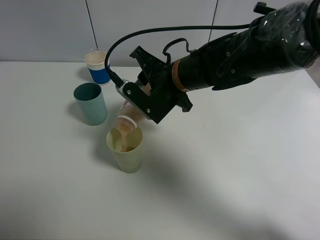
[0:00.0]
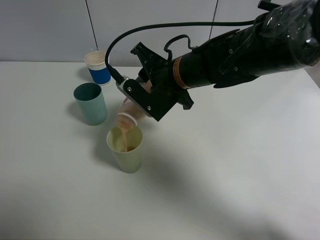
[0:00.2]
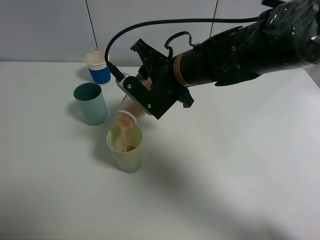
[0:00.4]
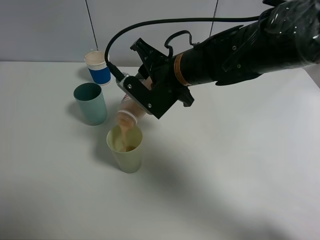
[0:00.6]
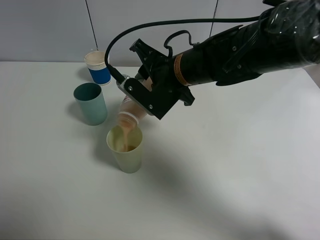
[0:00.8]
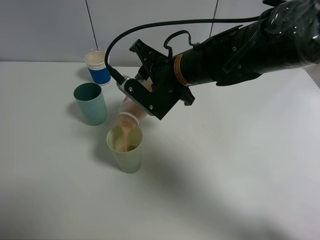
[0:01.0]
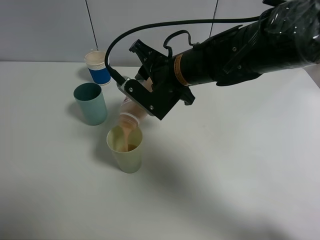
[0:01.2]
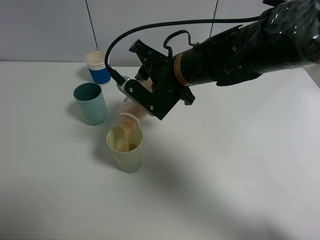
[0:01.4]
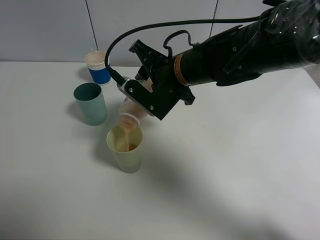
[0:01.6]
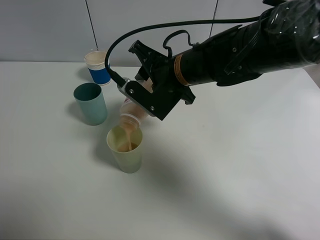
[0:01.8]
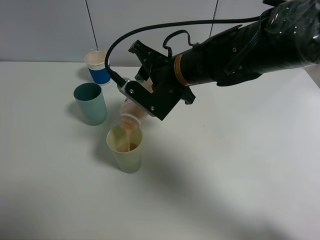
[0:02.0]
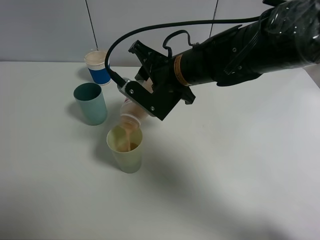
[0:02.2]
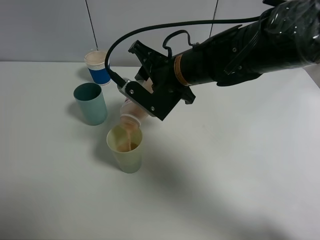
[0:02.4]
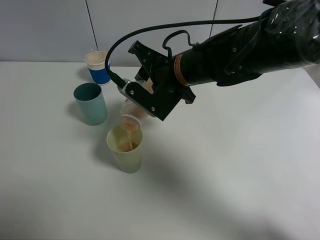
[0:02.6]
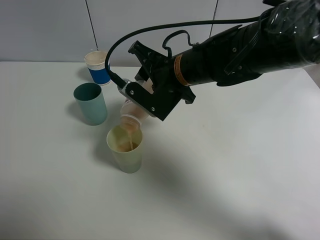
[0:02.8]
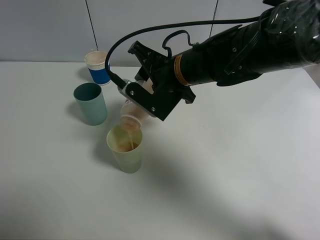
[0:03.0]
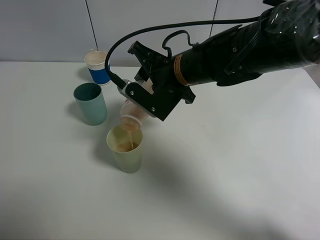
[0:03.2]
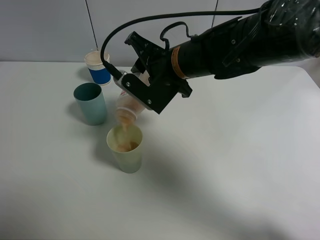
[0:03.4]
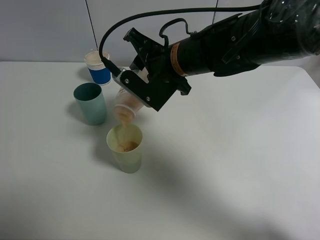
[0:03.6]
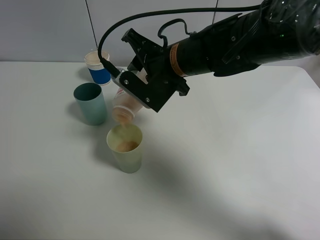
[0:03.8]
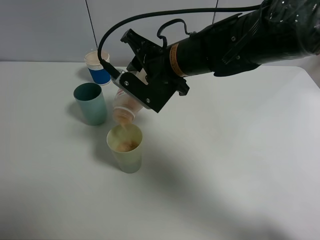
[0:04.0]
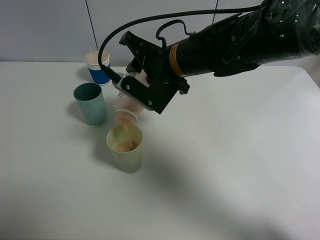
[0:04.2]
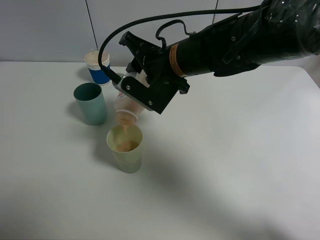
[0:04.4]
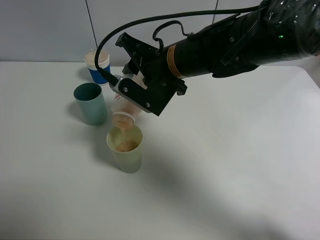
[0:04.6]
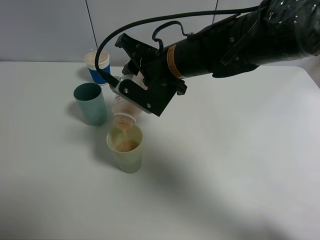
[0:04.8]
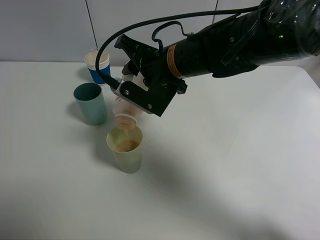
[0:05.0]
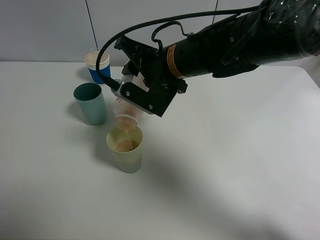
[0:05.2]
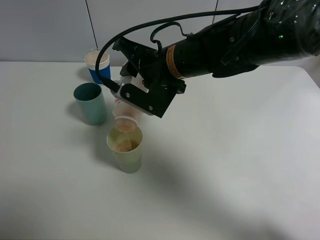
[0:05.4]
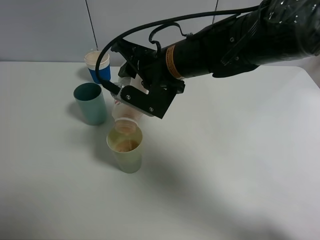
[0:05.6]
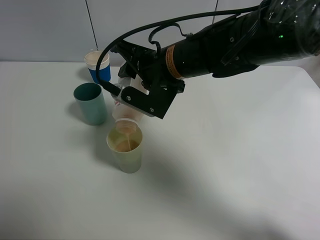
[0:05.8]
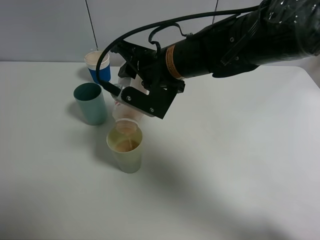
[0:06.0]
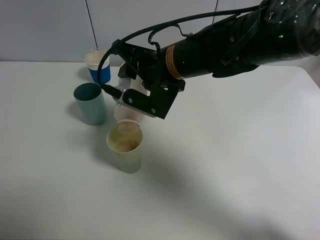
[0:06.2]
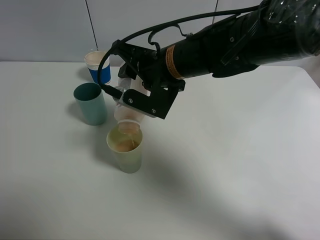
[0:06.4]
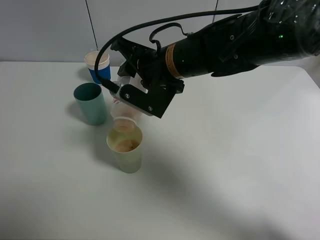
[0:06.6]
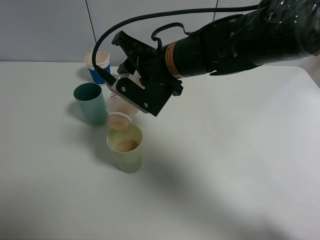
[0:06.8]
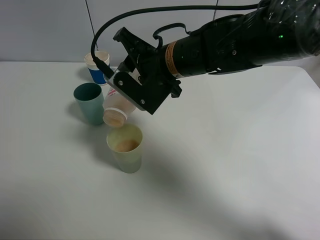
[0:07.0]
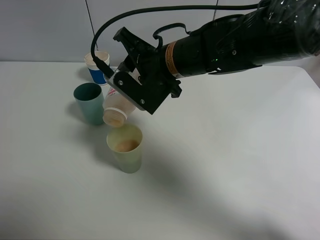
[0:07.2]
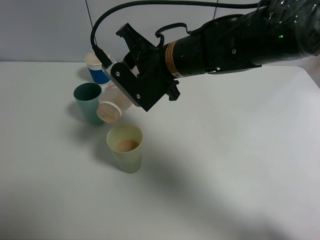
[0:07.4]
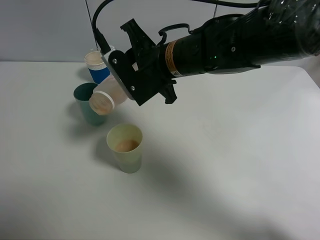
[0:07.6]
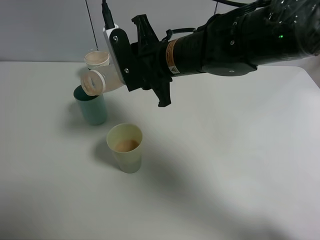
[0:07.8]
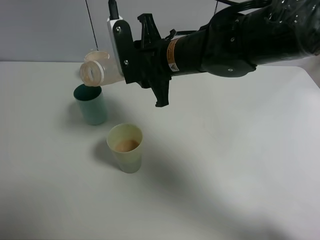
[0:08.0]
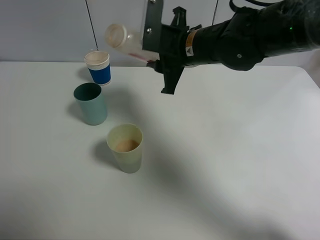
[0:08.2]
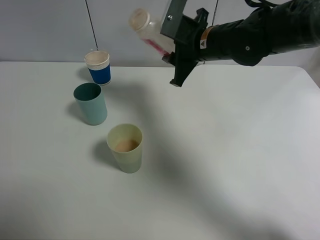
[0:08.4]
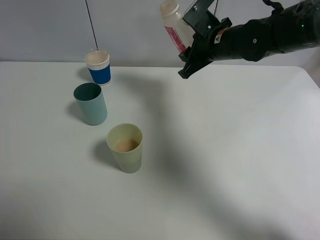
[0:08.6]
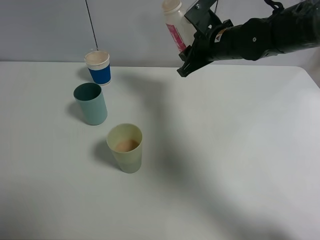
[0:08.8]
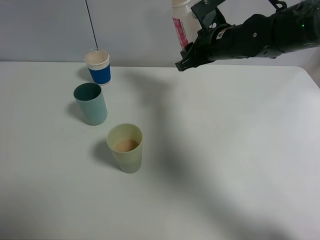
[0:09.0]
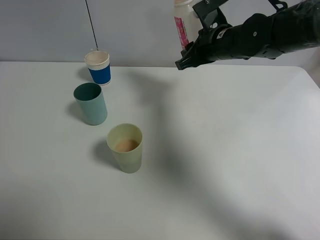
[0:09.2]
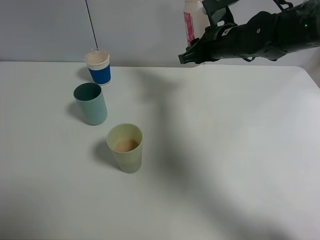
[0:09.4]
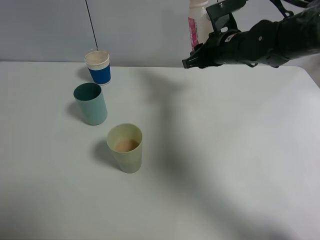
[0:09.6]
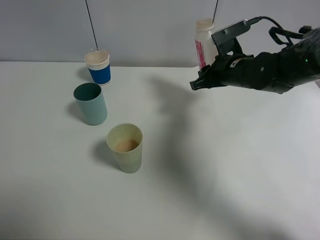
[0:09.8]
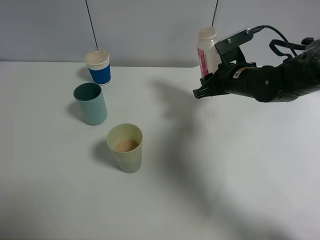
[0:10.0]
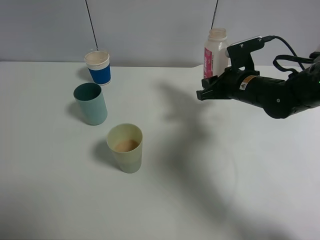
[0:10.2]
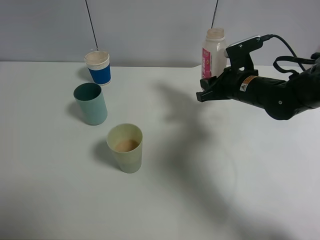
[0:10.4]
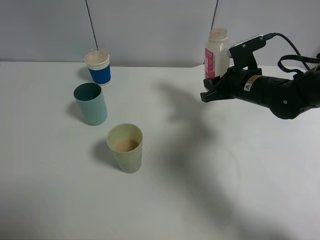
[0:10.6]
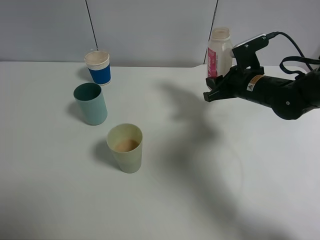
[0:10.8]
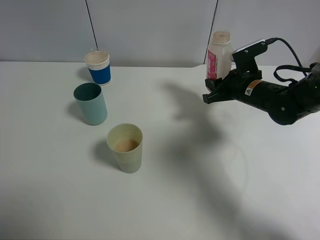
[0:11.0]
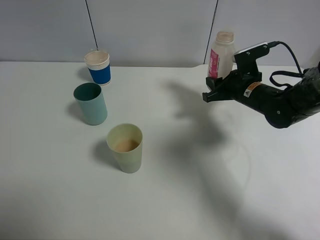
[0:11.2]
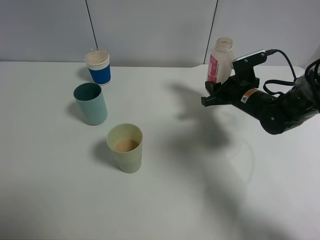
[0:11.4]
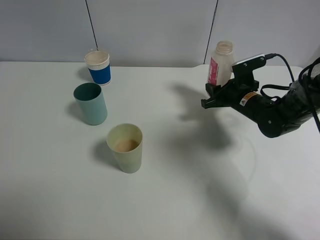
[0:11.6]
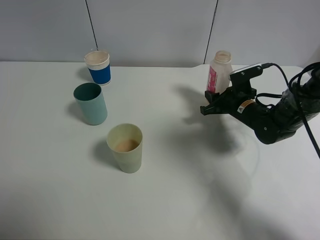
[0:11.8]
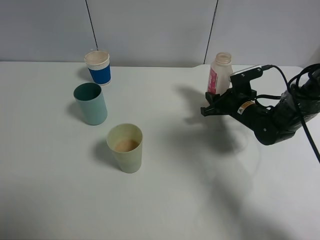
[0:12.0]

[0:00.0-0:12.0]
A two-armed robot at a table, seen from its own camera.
Task of the whole recording: use a clamp to hold the bottle of the drink, pour the beverage into a random cup, then clamp the cup containing the drink and pour the drink into another random cup.
Step, 0:00.0 to 0:07.6: Pour the drink into the green plastic cup with right gripper.
0:00.0 to 0:01.6: Neither gripper changes place.
0:01.6 to 0:03.0: Neither gripper changes place.
0:03.0 to 0:06.0: The grippers move only a little.
0:07.6 to 0:09.0: The right gripper heads to the right and forward, covering about 15 cm.
0:09.0 to 0:10.4: The right gripper is displaced downward and to the right by approximately 10 cm.
0:10.4 to 0:12.0: The right gripper goes roughly 10 cm downward.

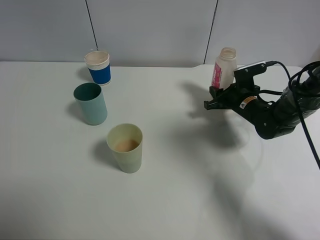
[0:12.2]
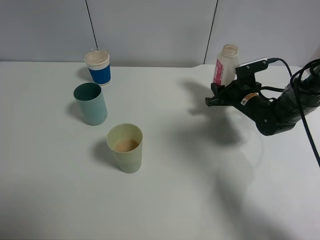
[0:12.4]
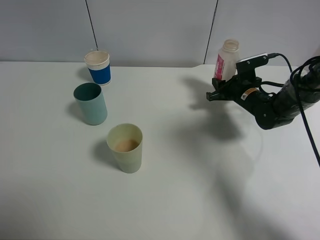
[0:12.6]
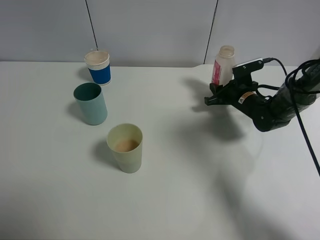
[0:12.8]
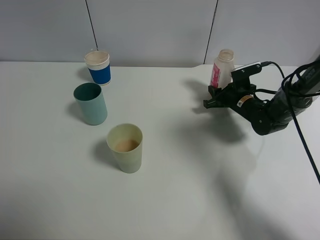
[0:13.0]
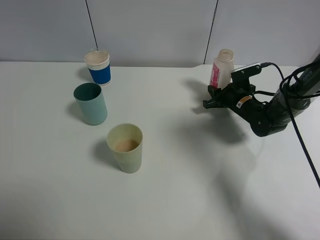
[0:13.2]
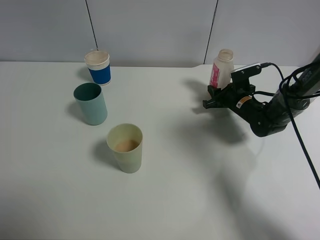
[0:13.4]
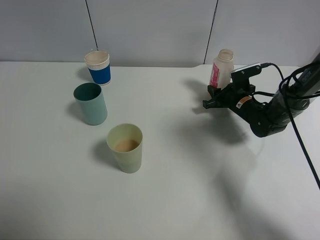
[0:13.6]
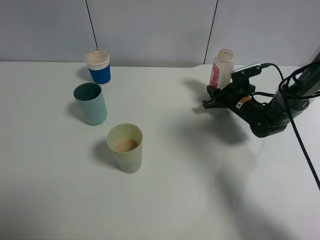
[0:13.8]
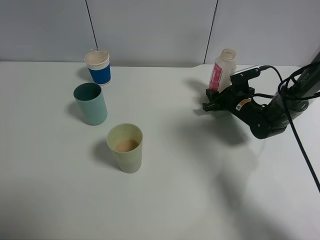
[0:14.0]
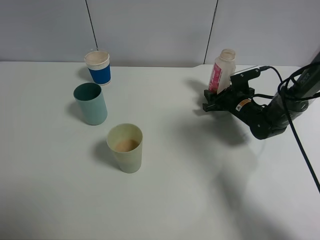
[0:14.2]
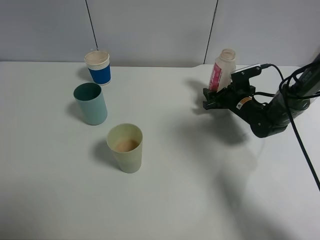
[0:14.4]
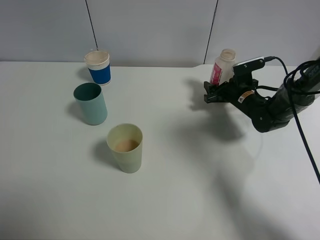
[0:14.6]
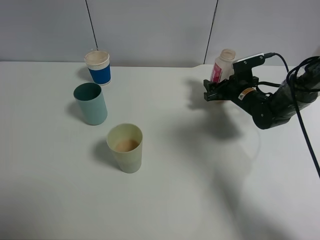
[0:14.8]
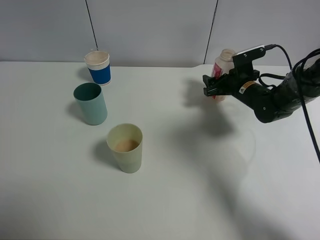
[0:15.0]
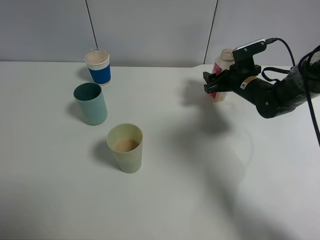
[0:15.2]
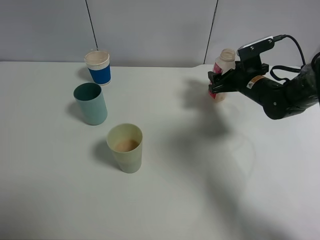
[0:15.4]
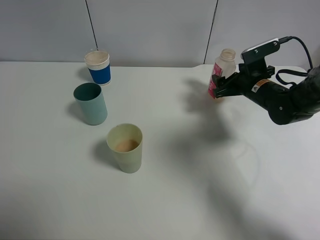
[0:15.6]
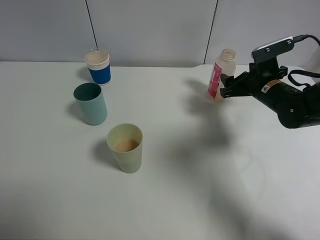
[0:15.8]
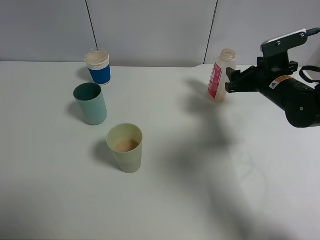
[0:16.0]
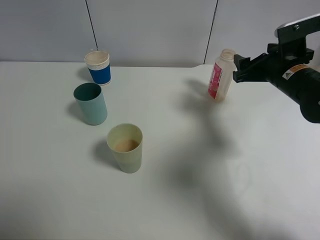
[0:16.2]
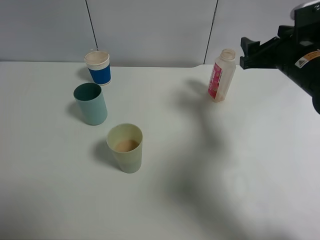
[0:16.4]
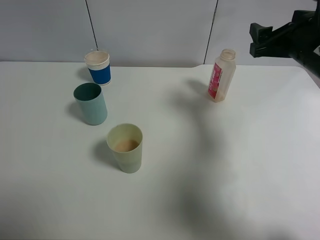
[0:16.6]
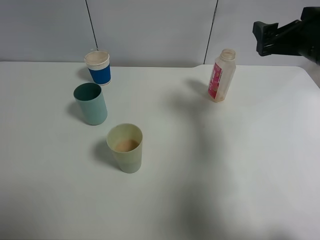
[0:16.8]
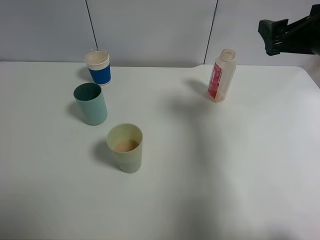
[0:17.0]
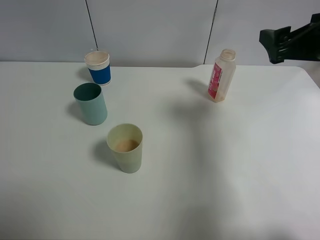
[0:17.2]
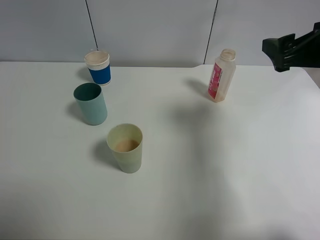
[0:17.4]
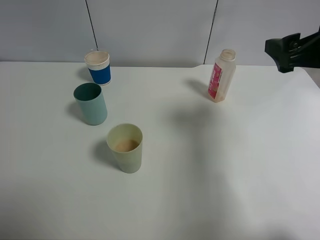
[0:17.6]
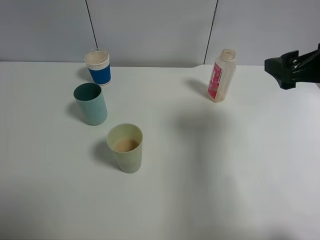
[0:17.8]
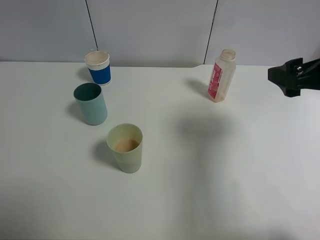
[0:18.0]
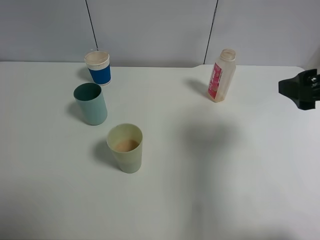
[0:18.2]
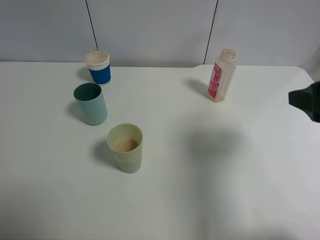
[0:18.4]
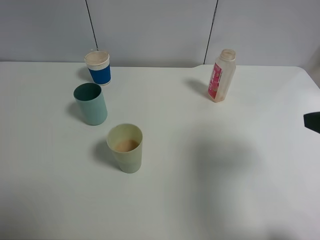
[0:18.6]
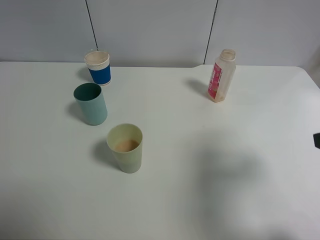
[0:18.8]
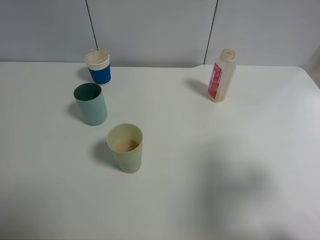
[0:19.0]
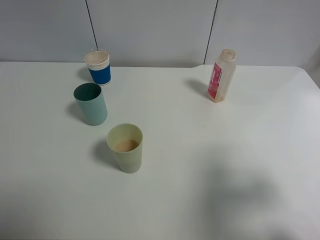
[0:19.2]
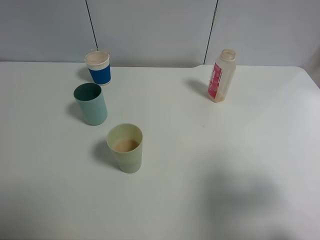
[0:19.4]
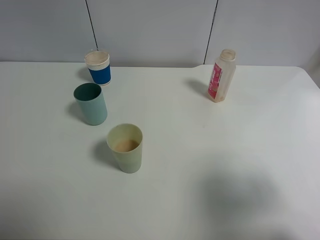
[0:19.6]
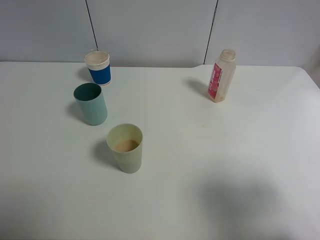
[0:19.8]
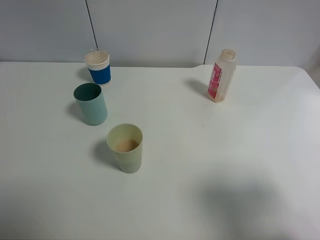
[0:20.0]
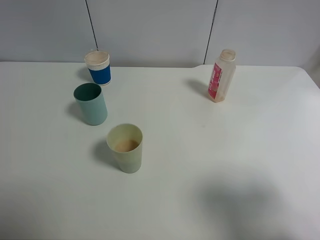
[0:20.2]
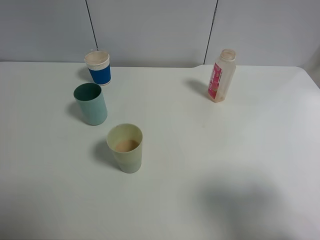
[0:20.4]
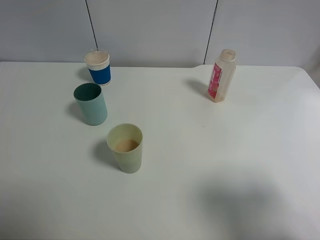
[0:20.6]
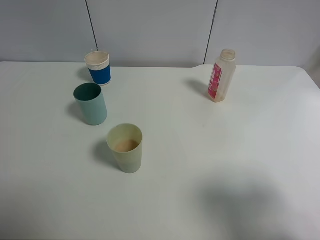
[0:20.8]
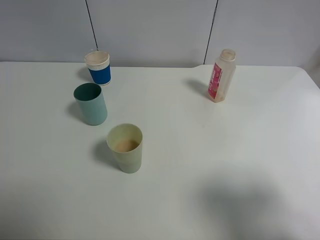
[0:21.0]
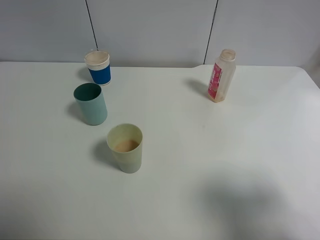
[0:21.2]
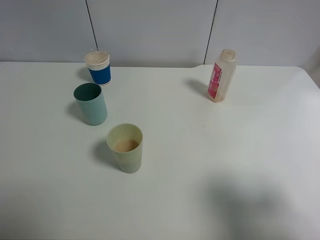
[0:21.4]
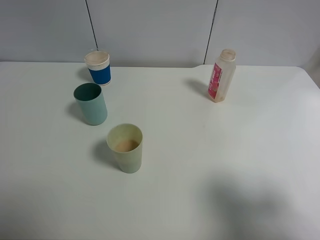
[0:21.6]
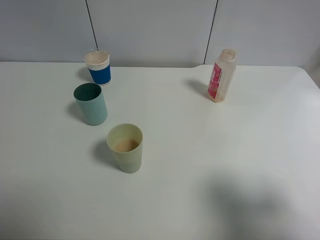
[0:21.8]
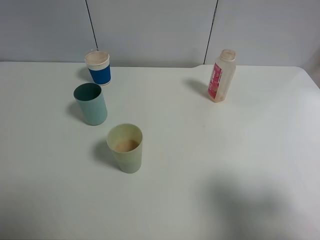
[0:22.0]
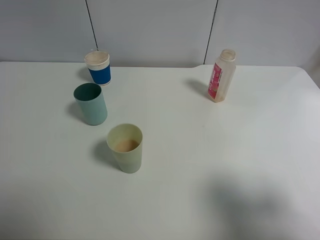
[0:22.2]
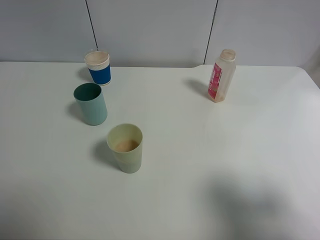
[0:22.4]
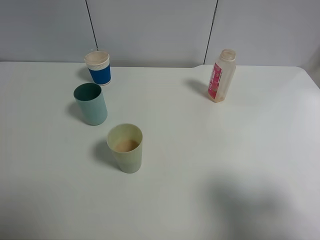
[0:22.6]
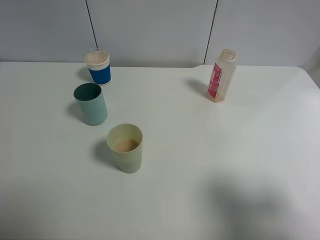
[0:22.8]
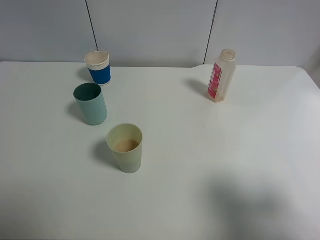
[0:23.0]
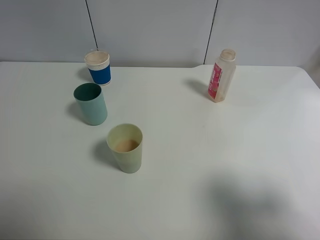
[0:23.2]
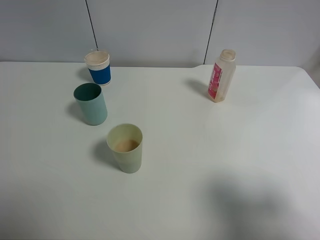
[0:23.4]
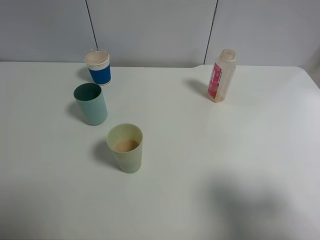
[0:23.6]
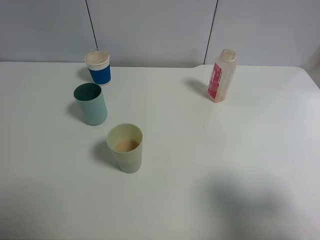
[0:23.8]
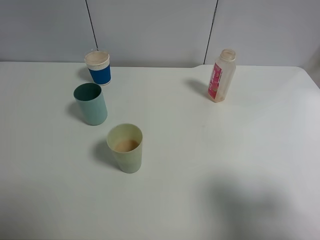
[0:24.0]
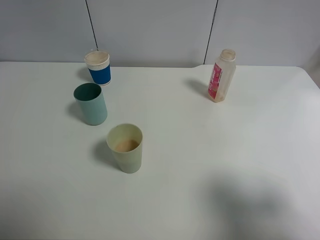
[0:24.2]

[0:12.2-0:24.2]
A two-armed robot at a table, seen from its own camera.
Task of the whole recording: use a clamp to hold the bottle of the drink, pour the beverage into a random cup, then clamp the cup containing the drink and pour the drink into another random cup.
Step, 0:12.2 to 0:15.2: Place the drink bottle on the table with right gripper.
0:12.2 to 0:13.8: The grippers make only small movements.
0:13.8 to 0:15.2: The right gripper travels upward by some 5 cm, and opens its fingers.
0:15.2 to 0:16.6: The right gripper is displaced upward and backward by roughly 20 cm.
0:16.6 to 0:18.2: The right gripper travels backward by roughly 10 cm, and opens up.
0:18.2 to 0:19.8: The right gripper heads backward, covering some 15 cm.
